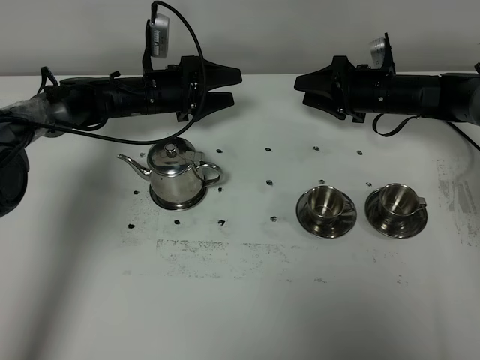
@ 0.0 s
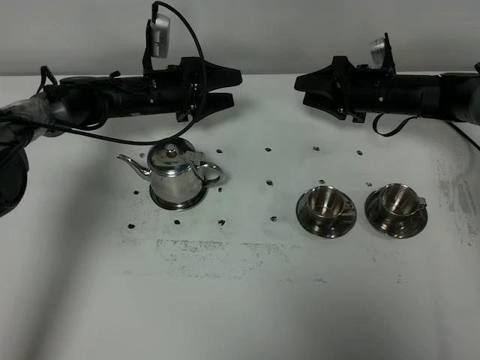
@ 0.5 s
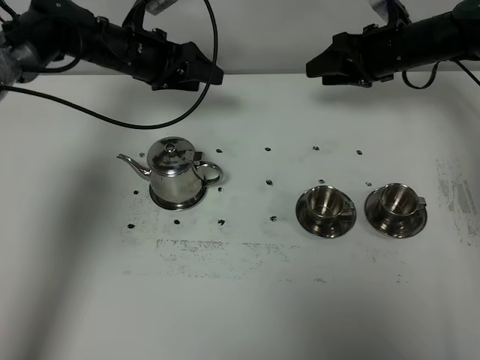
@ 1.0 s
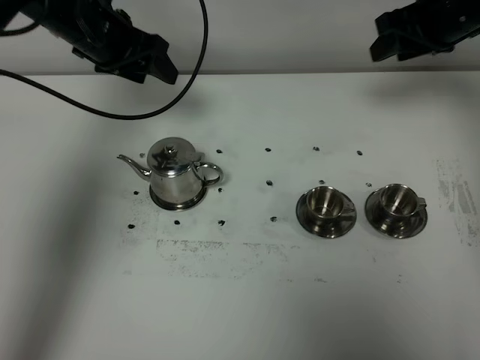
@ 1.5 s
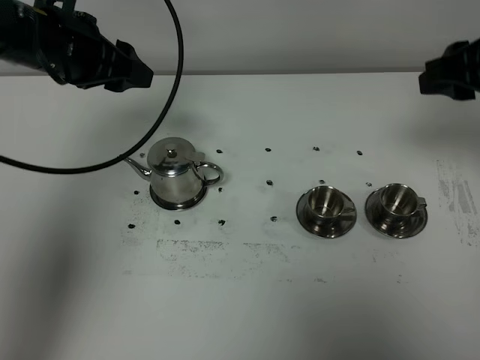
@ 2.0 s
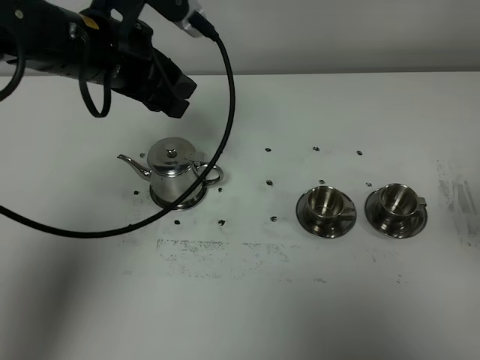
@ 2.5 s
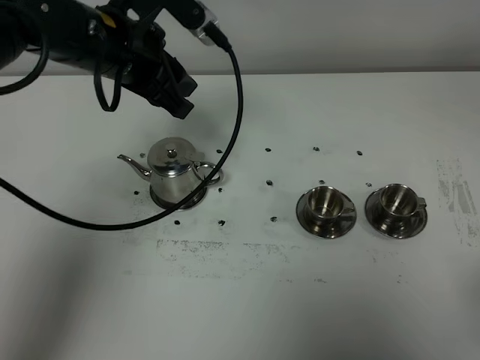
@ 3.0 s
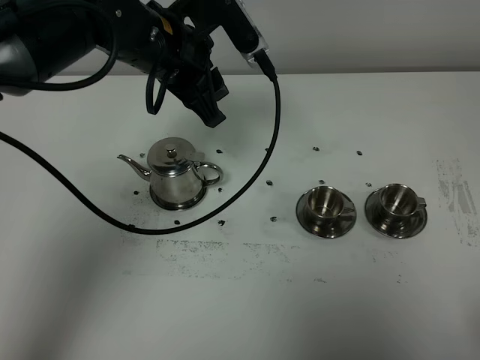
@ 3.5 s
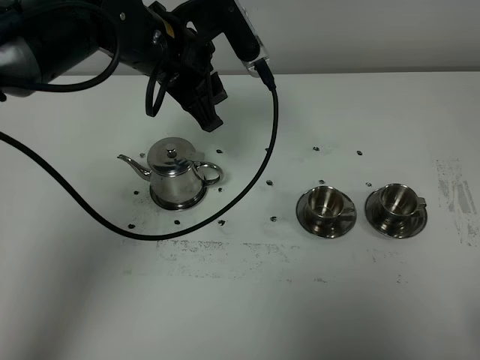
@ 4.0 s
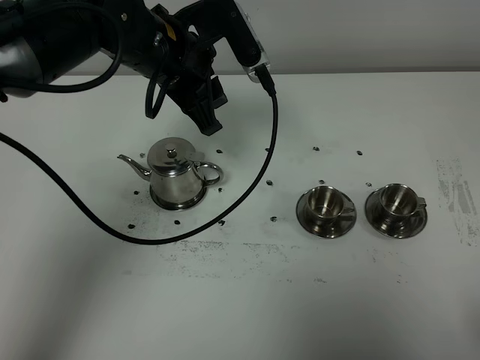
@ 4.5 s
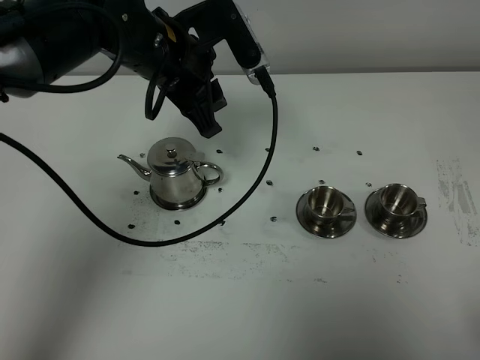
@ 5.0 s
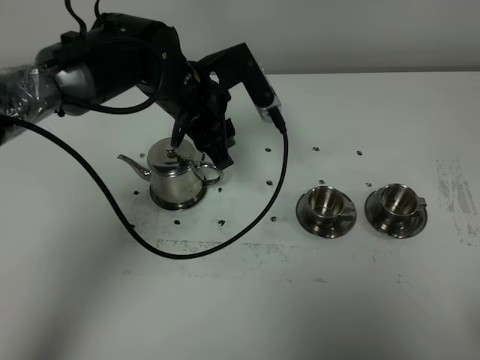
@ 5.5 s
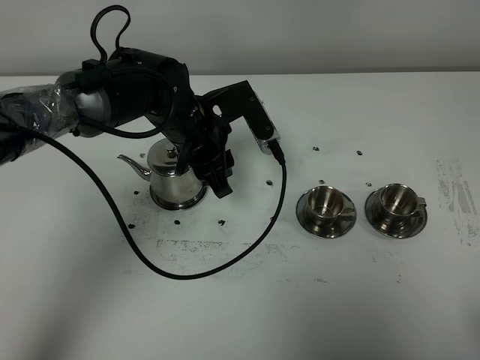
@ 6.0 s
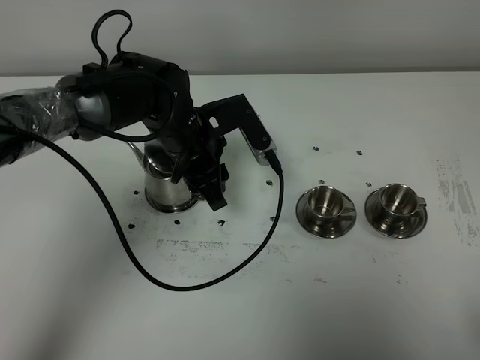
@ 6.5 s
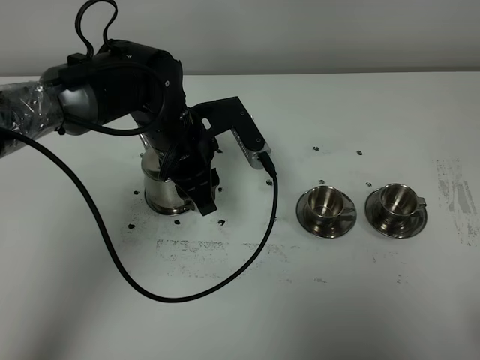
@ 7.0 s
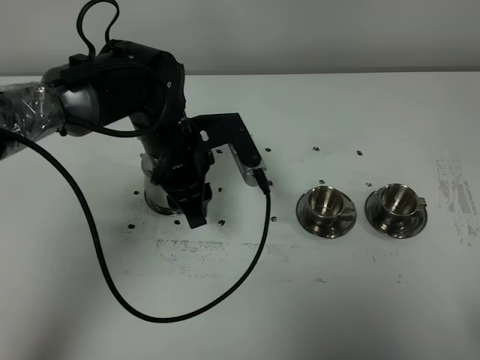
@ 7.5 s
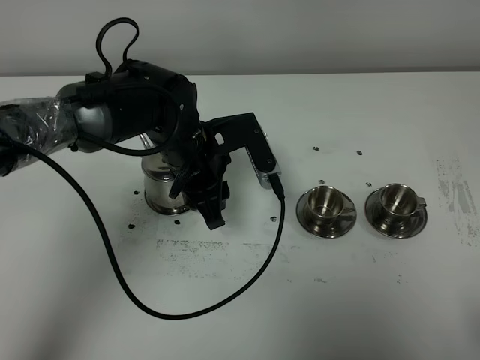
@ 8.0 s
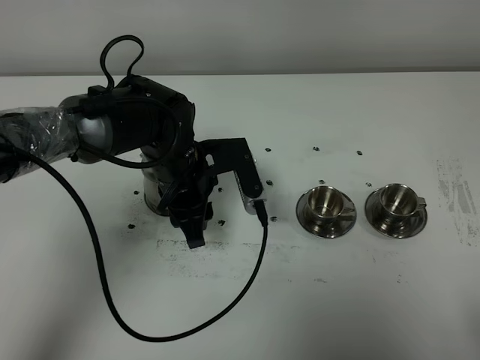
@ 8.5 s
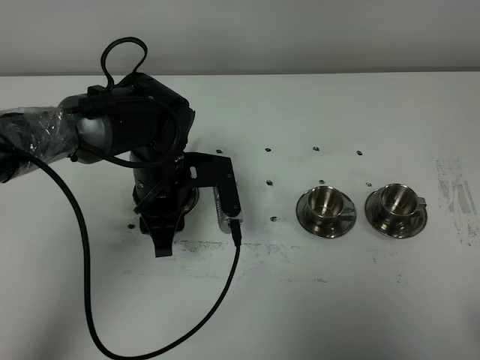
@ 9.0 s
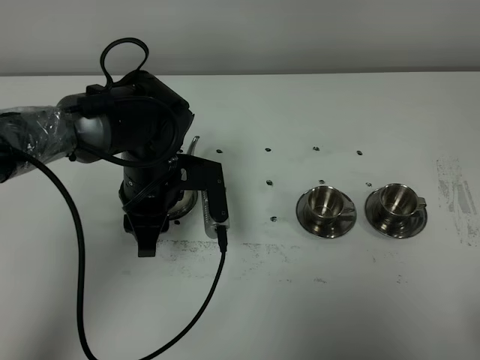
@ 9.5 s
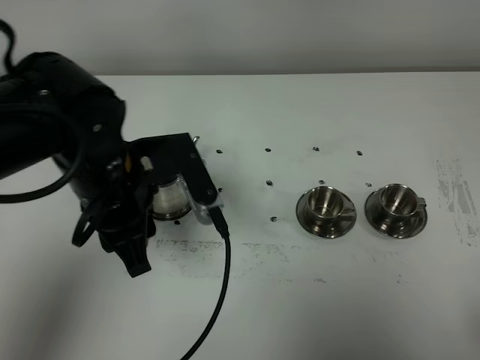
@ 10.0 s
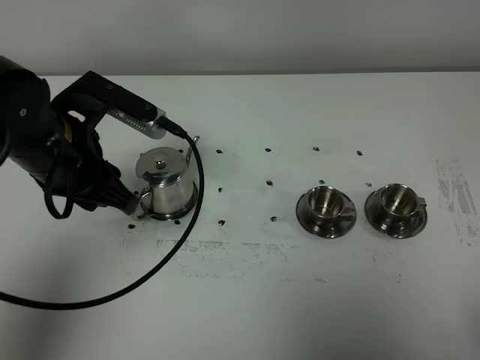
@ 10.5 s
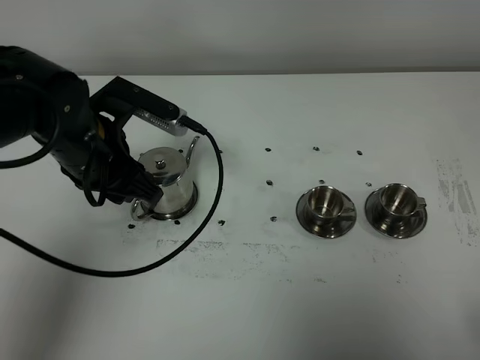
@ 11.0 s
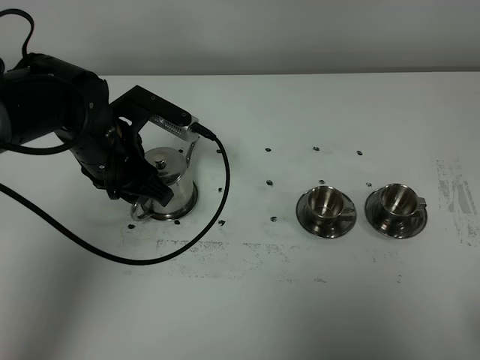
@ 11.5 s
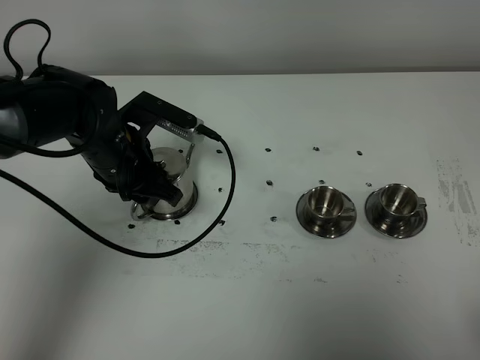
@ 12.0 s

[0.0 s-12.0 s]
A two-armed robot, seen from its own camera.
Task of the whole recording: grasp the stainless steel teapot and pour the tea into the two stainless steel teacups one by one, put the stainless steel teapot back in its original place.
0.0 to 2.0 s: The grippers both shift upward and backward by approximately 25 cm.
2.0 to 4.0 s: The right gripper moves backward, approximately 30 cm; the left gripper moves to the right, some 10 cm.
4.0 to 6.0 s: The left gripper travels downward by roughly 10 cm.
6.0 to 8.0 s: There are only small adjustments of the grippers.
8.0 to 10.0 s: The left gripper shifts roughly 15 cm backward, upward and to the left.
10.0 to 12.0 s: The left gripper heads forward and downward, covering about 10 cm.

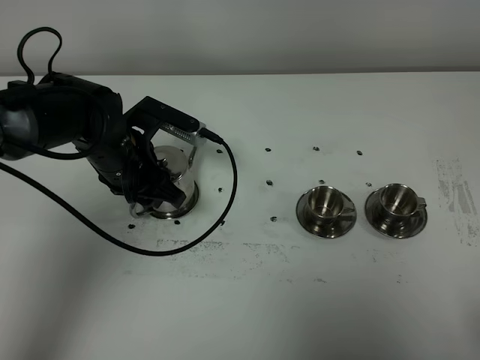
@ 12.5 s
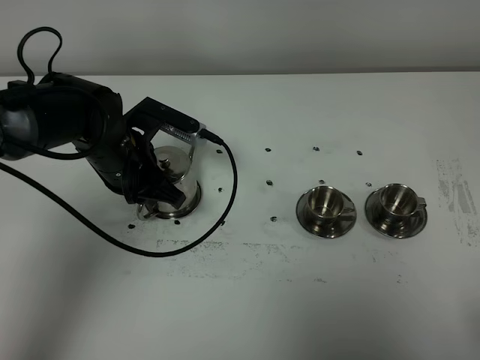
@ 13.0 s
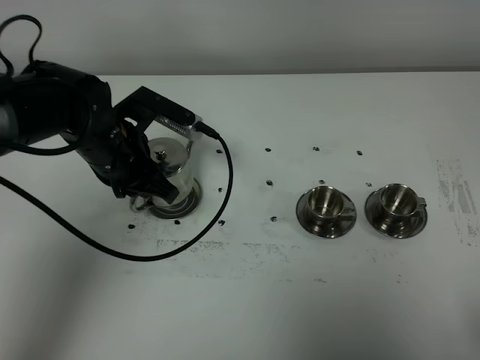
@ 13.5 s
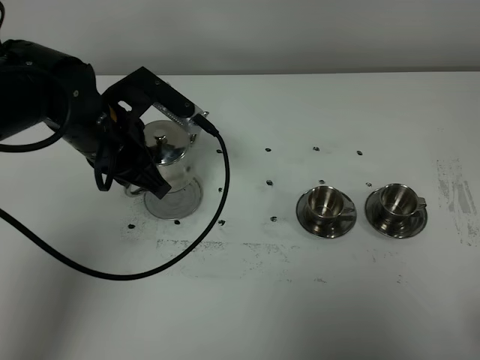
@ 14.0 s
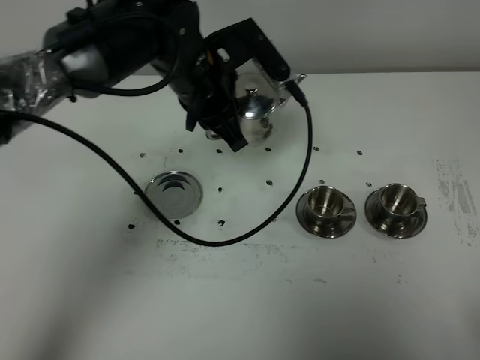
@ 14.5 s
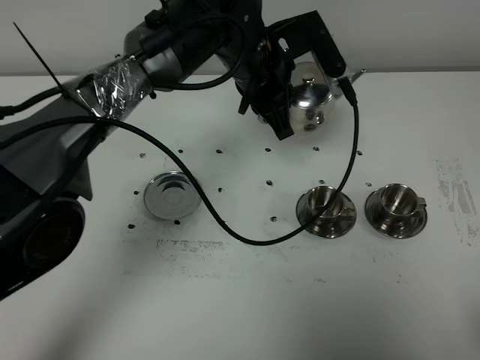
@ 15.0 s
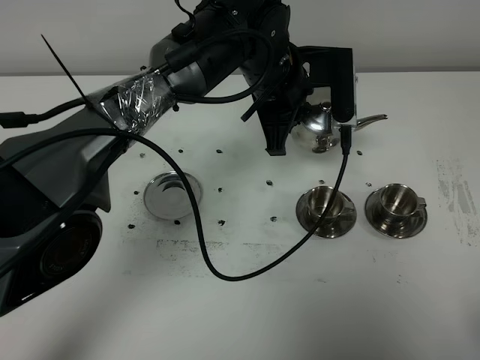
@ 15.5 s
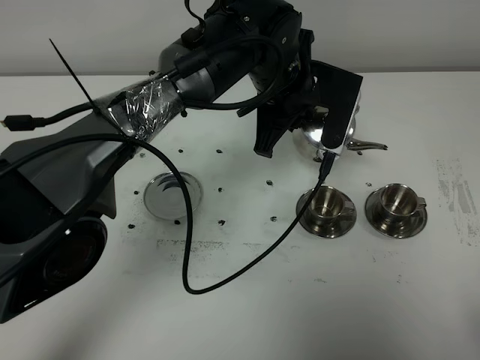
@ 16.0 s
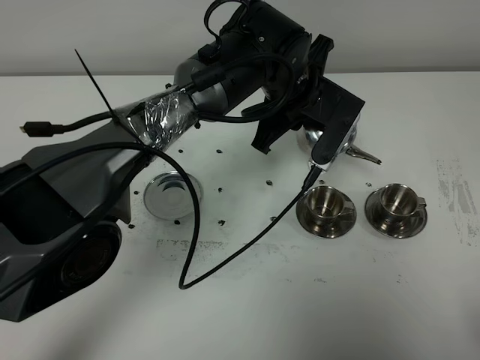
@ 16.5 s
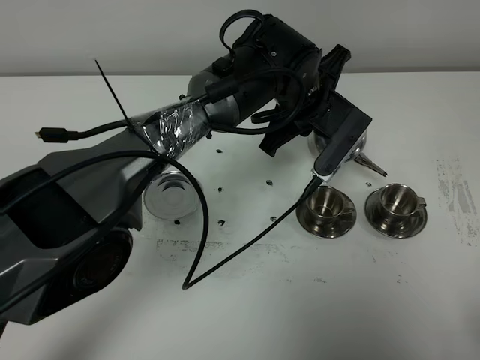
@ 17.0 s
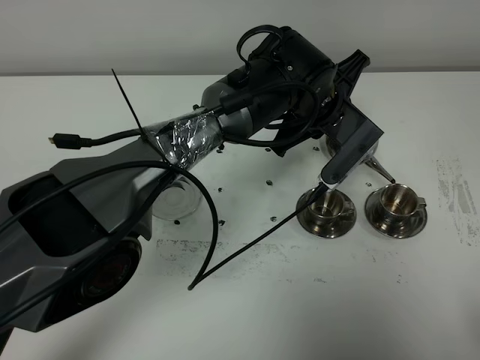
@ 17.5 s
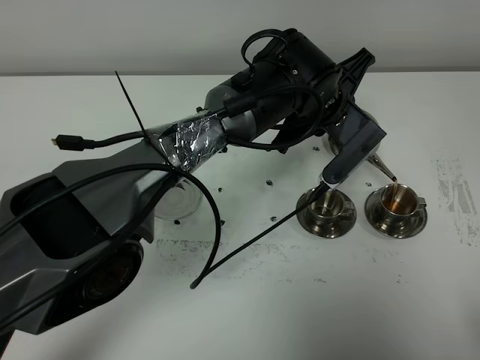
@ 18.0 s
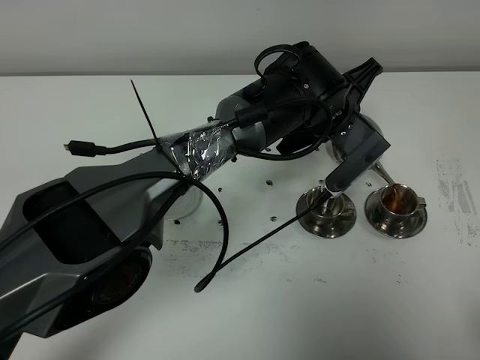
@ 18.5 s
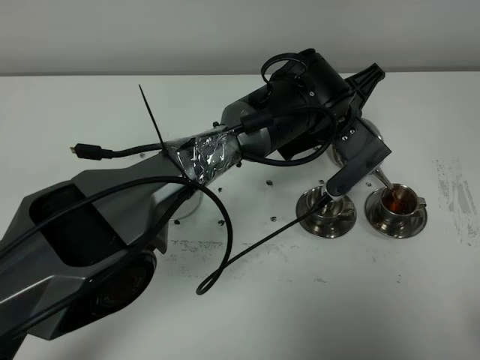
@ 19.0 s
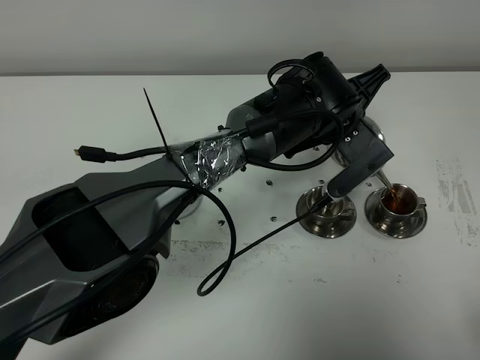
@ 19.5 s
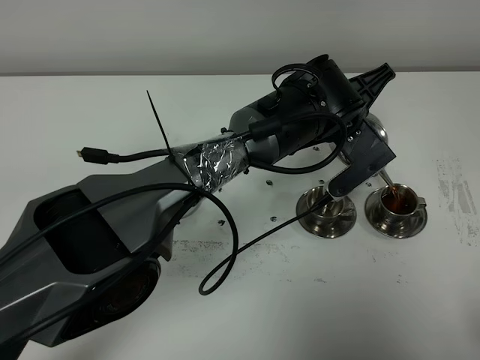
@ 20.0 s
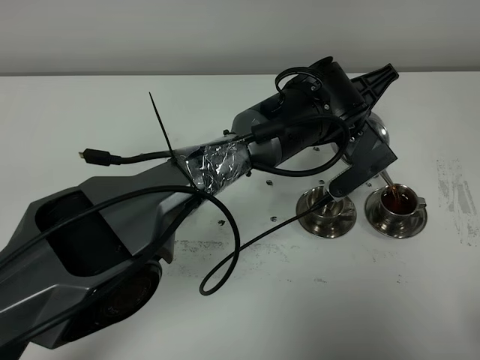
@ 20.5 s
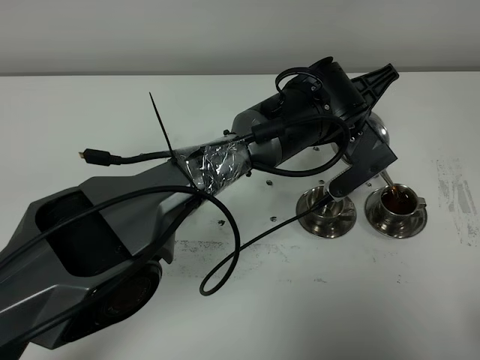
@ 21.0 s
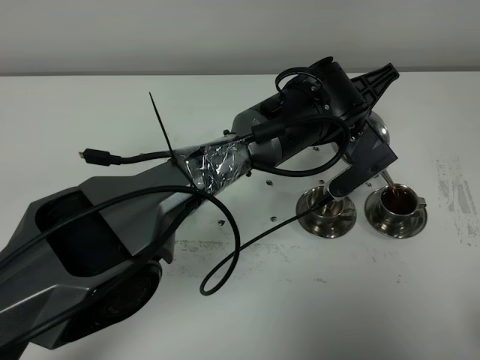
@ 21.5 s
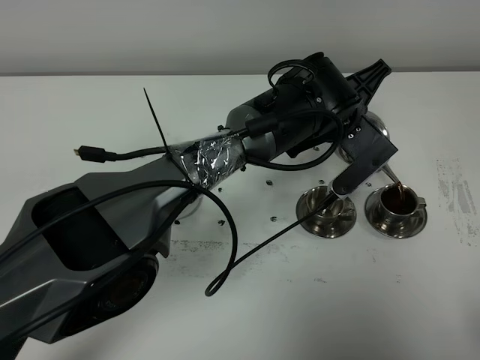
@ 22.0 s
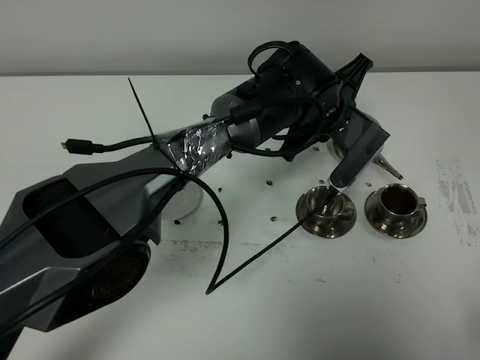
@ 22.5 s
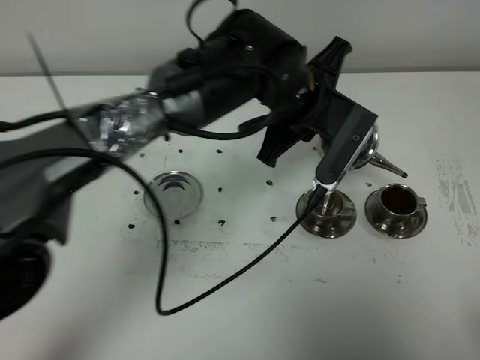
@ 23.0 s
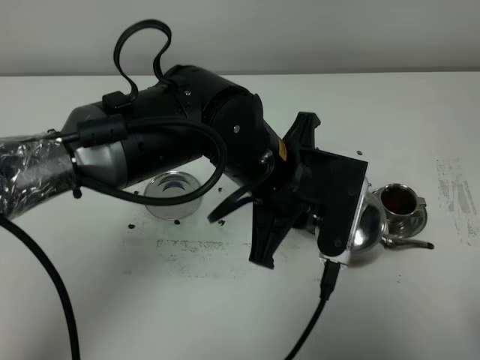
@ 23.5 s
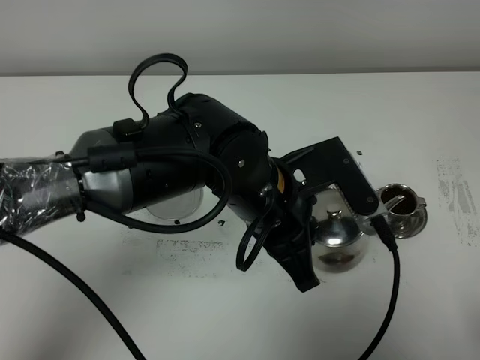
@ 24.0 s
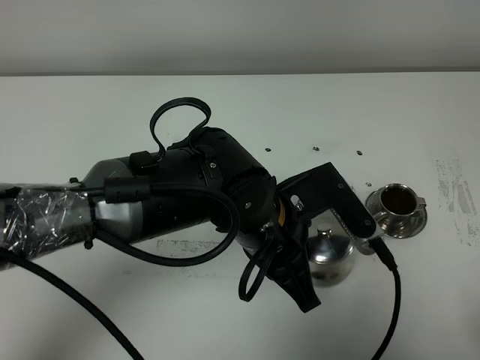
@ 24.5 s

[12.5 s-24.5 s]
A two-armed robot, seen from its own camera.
Task of the whole recording: grasp the stainless steel teapot and pour the tea into the two stainless steel teacups one by one, put the stainless steel teapot back in its original place.
Step, 13.5 to 22.5 s: Pour tea into the teacup with the left gripper.
12.5 to 14.5 s: The left gripper shifts roughly 15 cm to the right and upward, and closes up.
14.5 to 16.5 s: The left gripper is displaced to the right by roughly 10 cm.
16.5 to 18.5 s: The left gripper changes place by roughly 5 cm.
18.5 to 20.5 s: The grippers stay close to where they were, moving slightly.
22.5 to 24.5 s: The left gripper moves backward and to the left, roughly 20 cm.

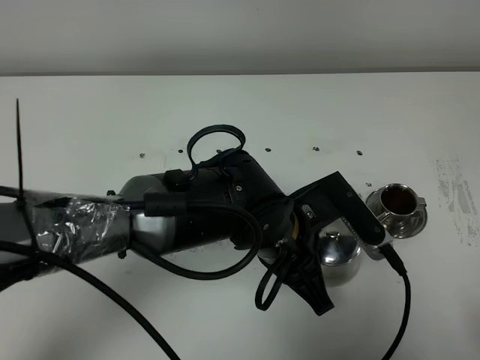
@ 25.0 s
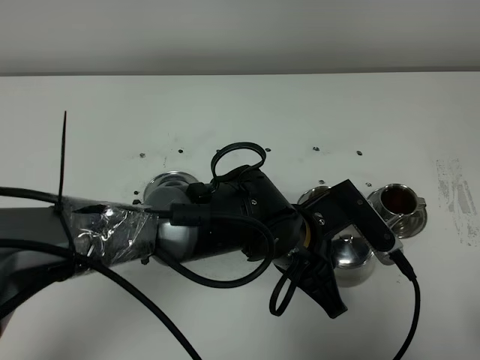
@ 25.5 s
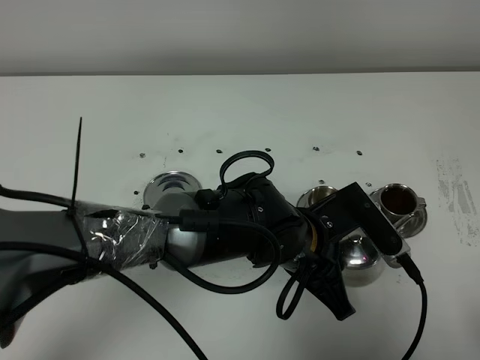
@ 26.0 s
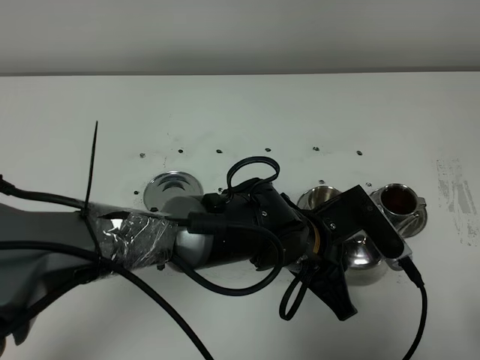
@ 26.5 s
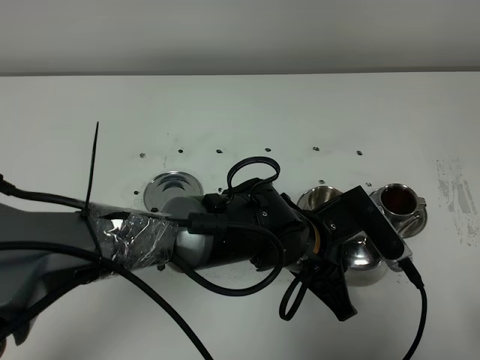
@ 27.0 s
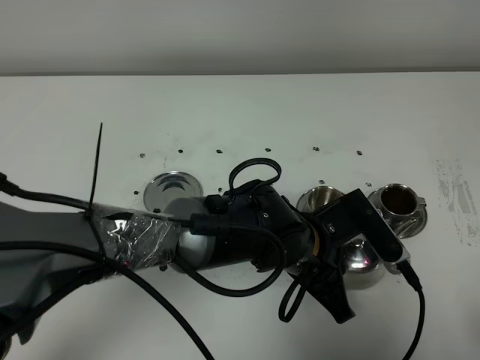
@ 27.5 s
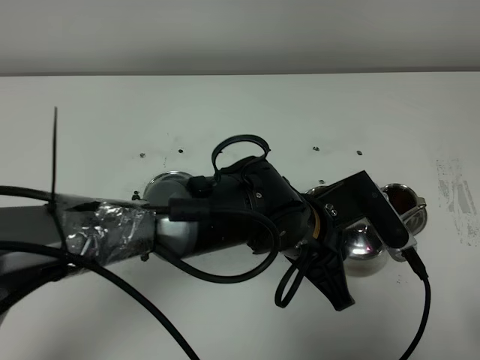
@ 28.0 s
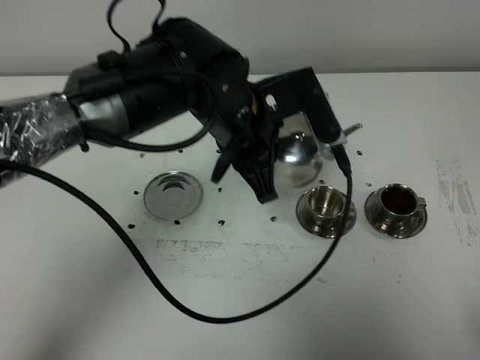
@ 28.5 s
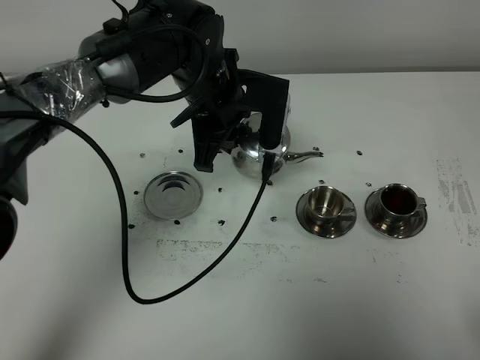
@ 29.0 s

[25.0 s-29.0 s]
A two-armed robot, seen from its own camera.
Task of the whole recording: grasp the stainless steel teapot and pour the tea into the two stainless steel teacups one by one, put the stainless steel teapot back in its original place.
27.0 to 29.0 s: The left gripper heads forward, to the left and upward, covering about 20 cm.
